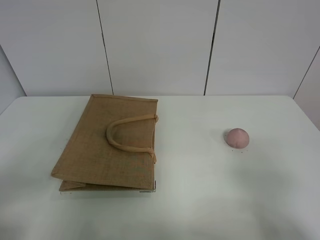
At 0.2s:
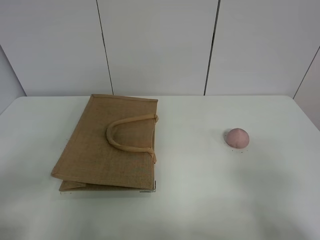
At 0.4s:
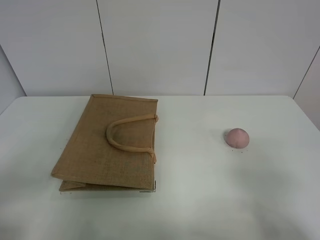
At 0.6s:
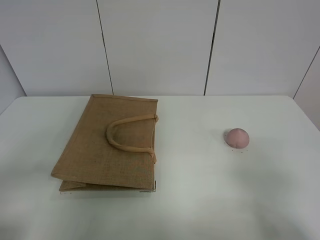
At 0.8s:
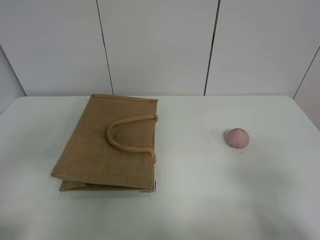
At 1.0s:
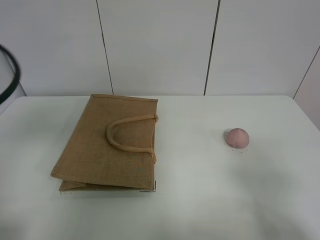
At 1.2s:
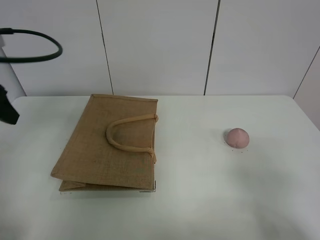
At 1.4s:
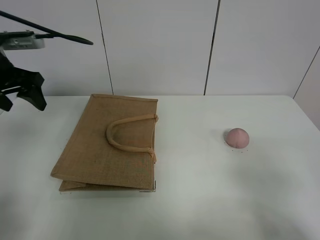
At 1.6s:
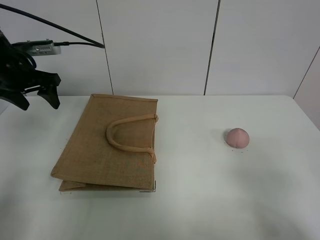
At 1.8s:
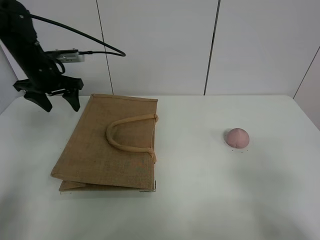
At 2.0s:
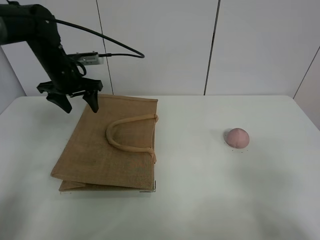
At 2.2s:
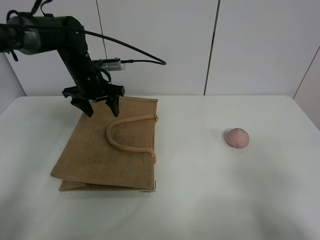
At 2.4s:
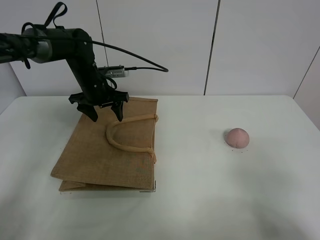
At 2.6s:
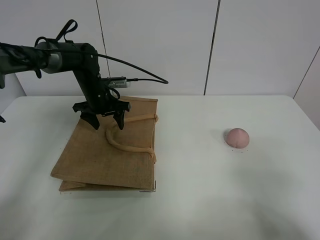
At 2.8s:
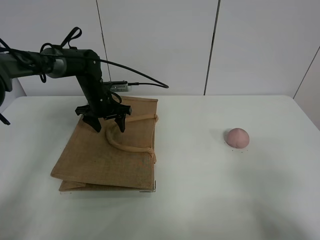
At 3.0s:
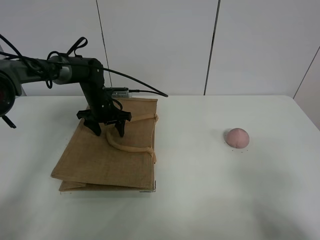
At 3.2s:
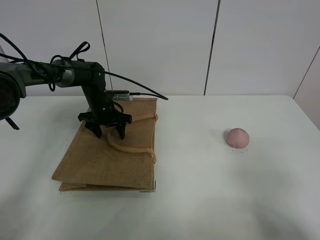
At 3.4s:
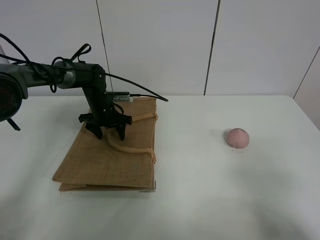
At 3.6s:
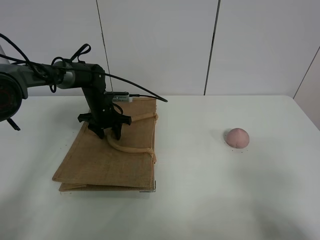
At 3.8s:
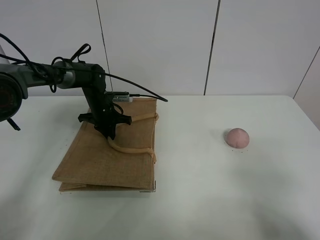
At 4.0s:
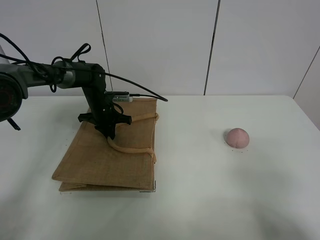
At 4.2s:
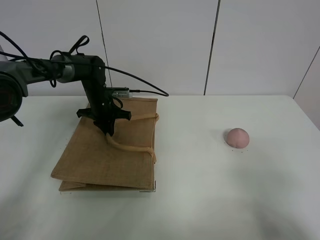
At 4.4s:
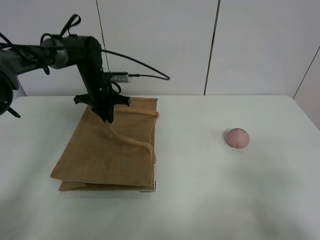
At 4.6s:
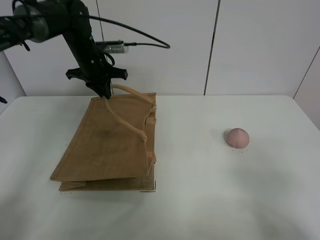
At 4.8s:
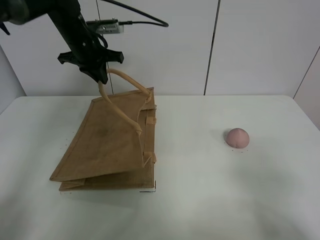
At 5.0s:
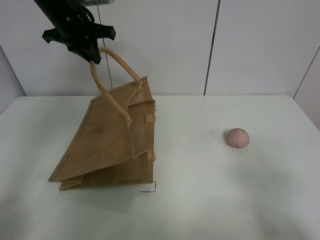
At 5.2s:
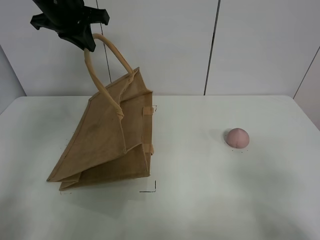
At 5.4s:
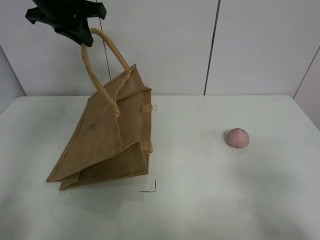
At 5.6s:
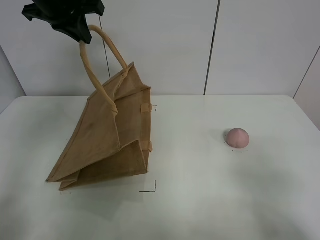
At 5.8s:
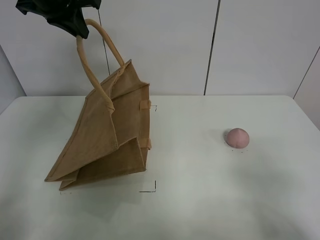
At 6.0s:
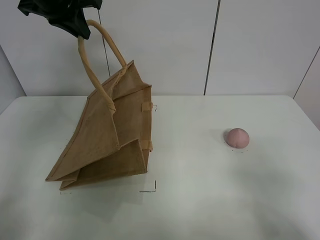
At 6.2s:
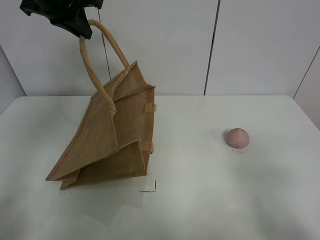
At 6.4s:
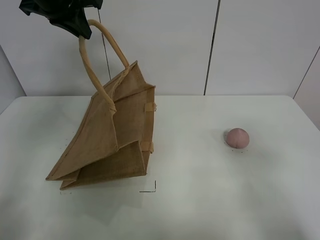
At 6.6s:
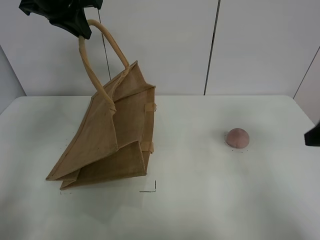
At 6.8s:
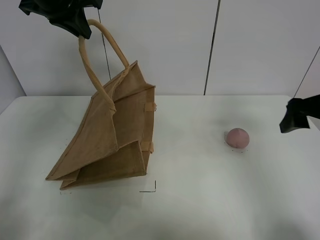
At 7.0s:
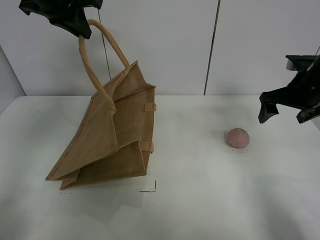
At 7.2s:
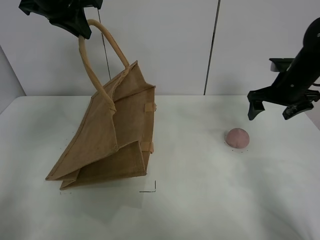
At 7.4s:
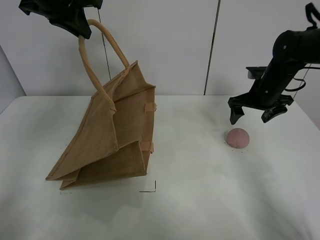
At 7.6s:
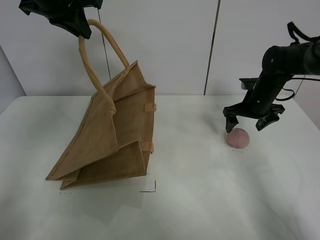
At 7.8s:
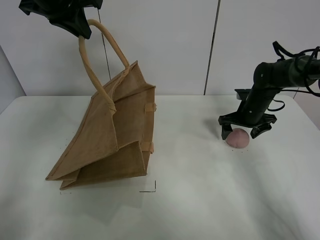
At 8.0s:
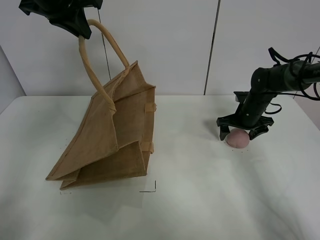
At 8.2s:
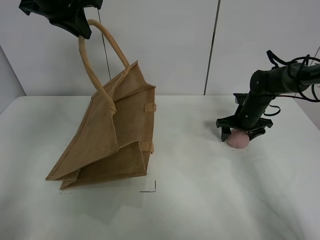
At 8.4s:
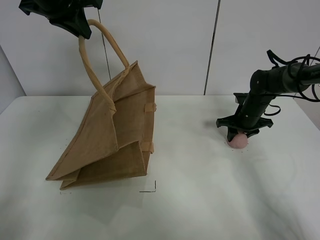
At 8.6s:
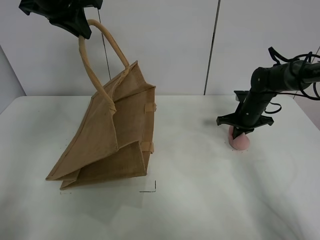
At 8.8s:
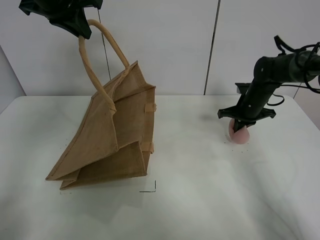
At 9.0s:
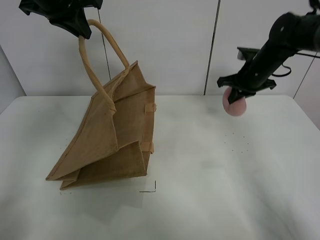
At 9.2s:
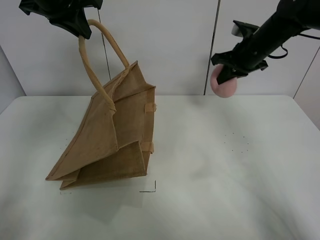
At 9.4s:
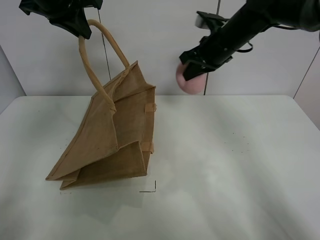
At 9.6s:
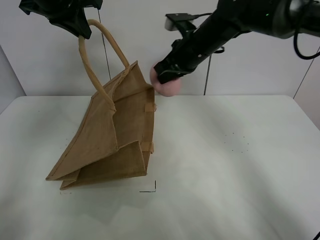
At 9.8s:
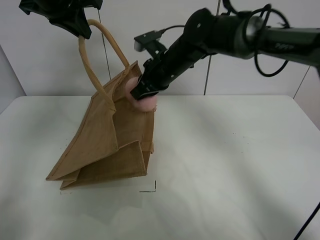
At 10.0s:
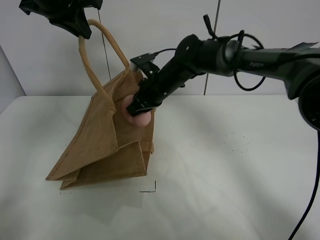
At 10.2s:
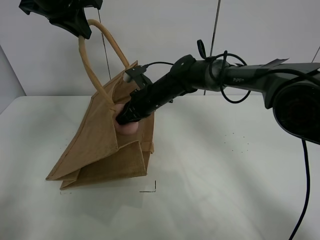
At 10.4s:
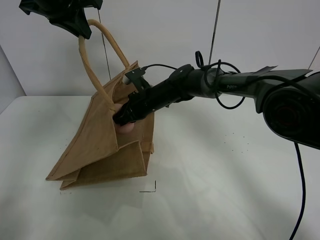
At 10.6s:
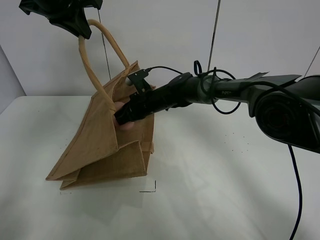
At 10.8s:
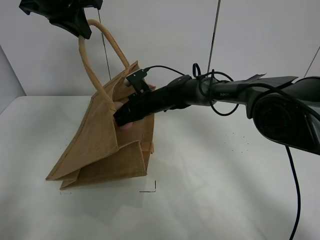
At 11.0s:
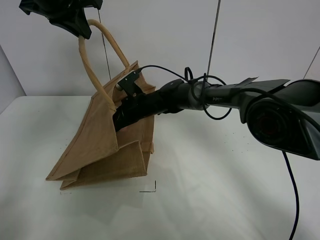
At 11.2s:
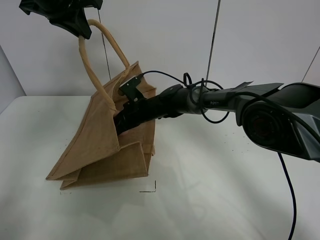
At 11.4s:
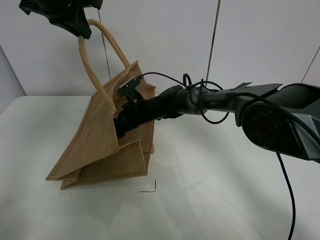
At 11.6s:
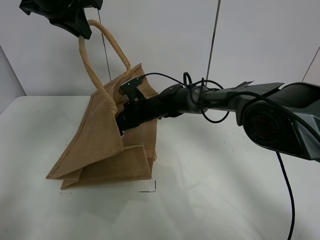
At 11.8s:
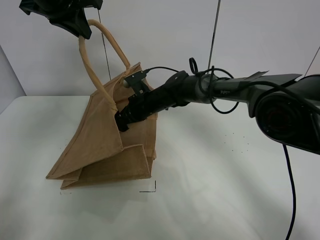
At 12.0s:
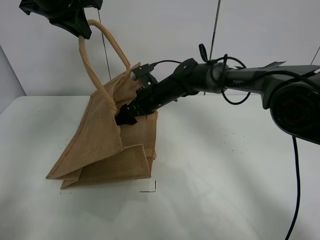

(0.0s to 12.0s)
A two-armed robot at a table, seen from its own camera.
Task of the whole recording: open the brown linen bag and put the peach in the bag.
Step, 0.0s - 5.8s: Lift the handbag with left gripper.
Step, 6.0s - 8.6s: Grasp the peach with right gripper.
0.0s - 1.6s: The left gripper goes some 40 cm forward.
1.6s - 3.0s: The left gripper is displaced downward, to the right and forward by about 20 cm.
3.0s - 4.4s: The left gripper travels upward by roughly 5 cm, and closes.
4.4s - 6.0s: The left gripper shifts approximately 25 cm upward.
6.0s - 7.6s: The right gripper heads forward, covering roughly 40 cm.
7.6s - 9.0s: The right gripper shifts roughly 5 cm upward, and closes.
9.0s - 10.4s: The right gripper is displaced to the left by approximately 25 cm.
10.4s - 12.0s: The right gripper opens.

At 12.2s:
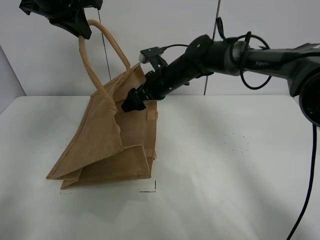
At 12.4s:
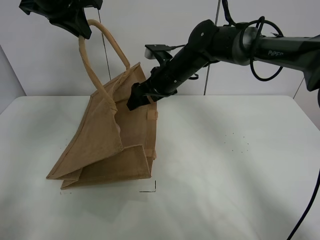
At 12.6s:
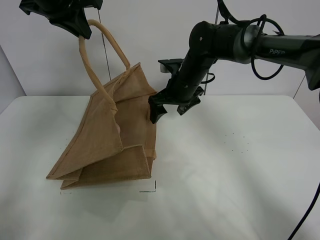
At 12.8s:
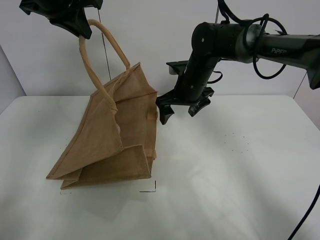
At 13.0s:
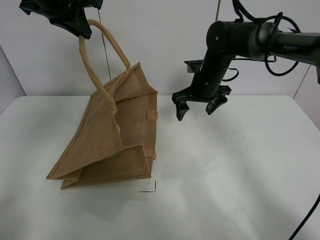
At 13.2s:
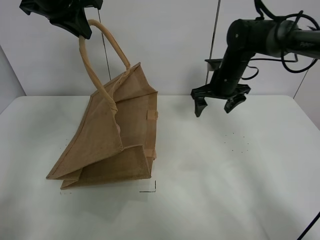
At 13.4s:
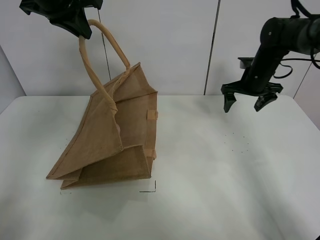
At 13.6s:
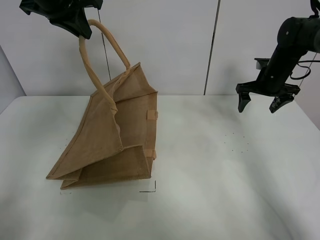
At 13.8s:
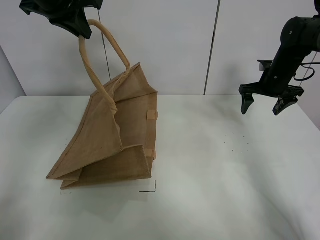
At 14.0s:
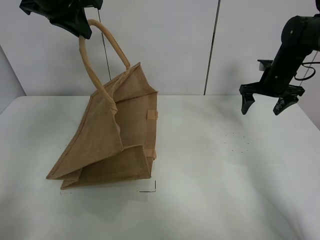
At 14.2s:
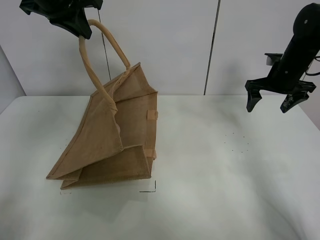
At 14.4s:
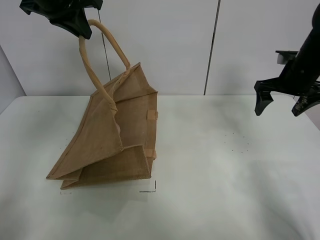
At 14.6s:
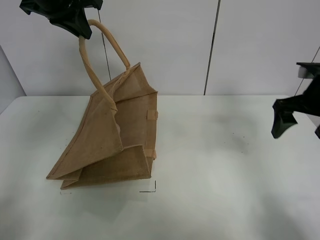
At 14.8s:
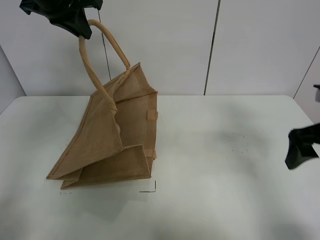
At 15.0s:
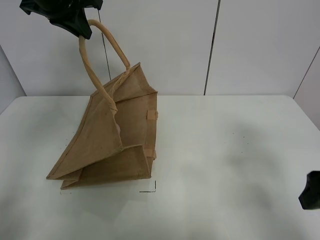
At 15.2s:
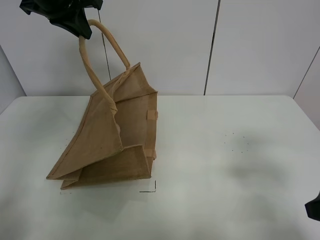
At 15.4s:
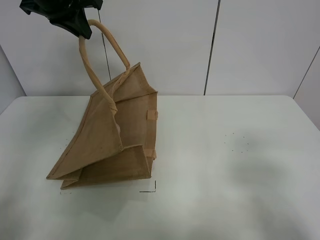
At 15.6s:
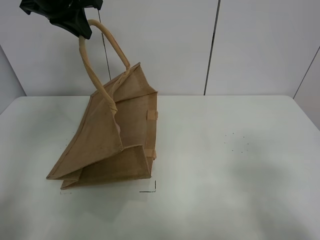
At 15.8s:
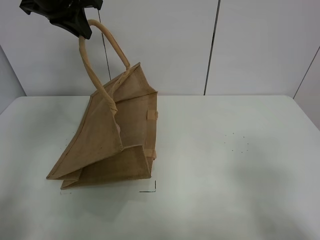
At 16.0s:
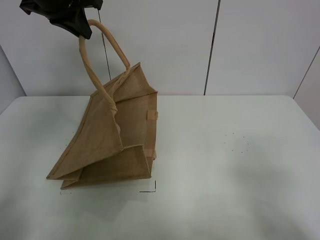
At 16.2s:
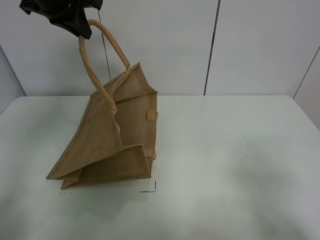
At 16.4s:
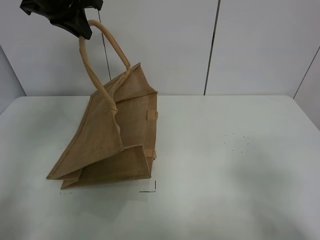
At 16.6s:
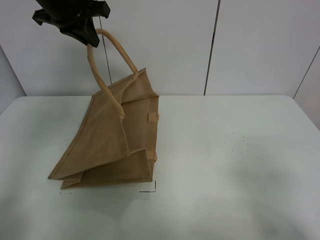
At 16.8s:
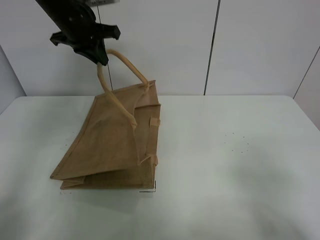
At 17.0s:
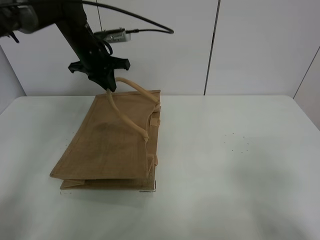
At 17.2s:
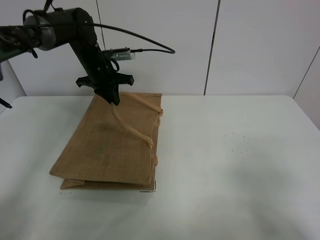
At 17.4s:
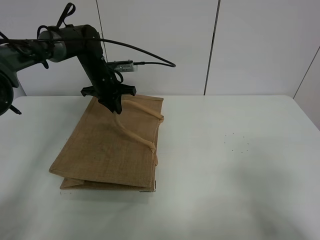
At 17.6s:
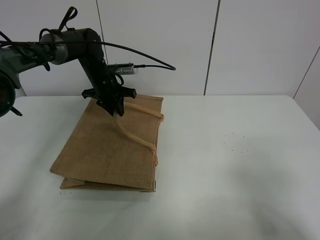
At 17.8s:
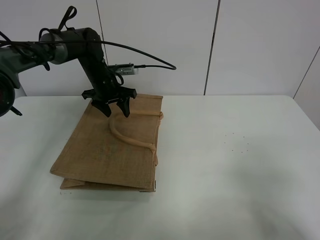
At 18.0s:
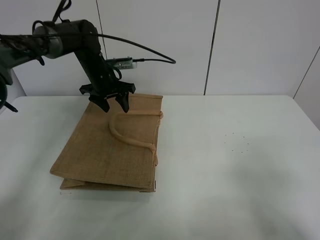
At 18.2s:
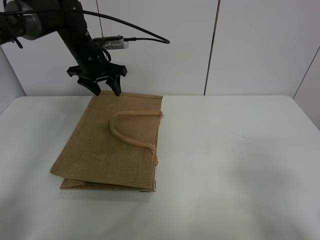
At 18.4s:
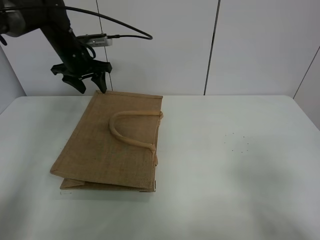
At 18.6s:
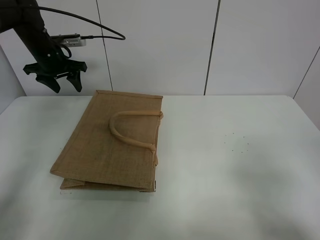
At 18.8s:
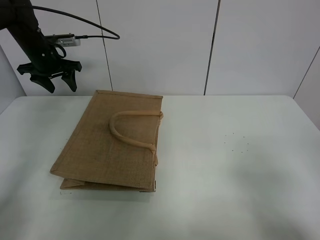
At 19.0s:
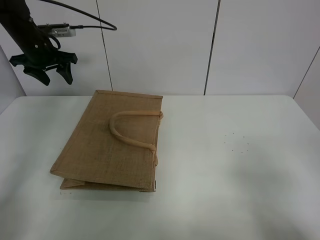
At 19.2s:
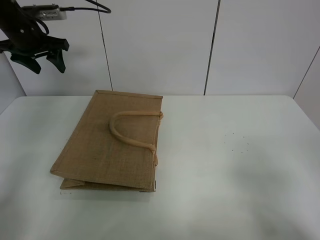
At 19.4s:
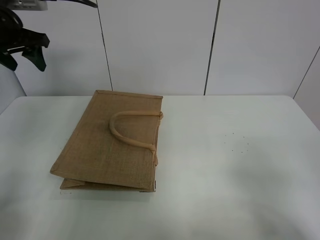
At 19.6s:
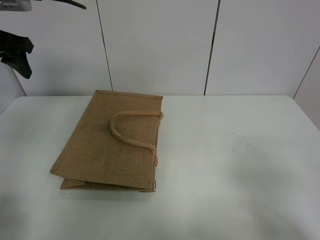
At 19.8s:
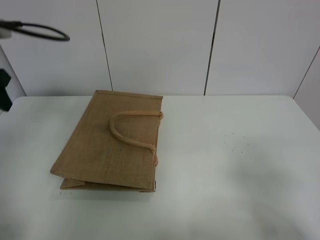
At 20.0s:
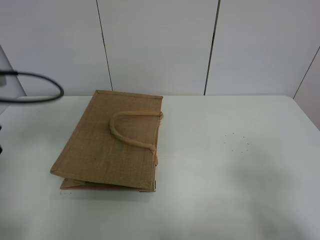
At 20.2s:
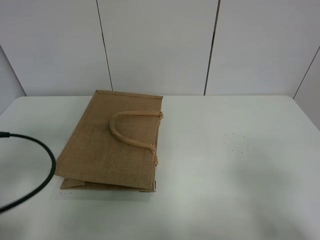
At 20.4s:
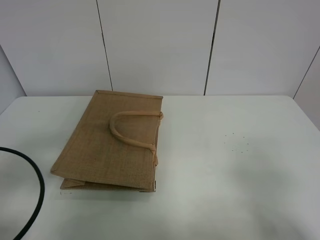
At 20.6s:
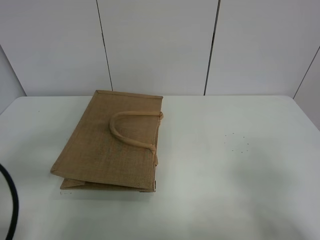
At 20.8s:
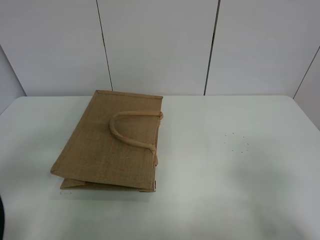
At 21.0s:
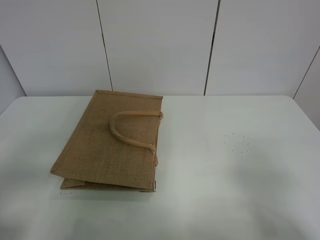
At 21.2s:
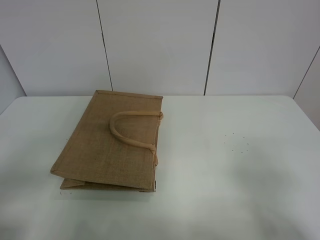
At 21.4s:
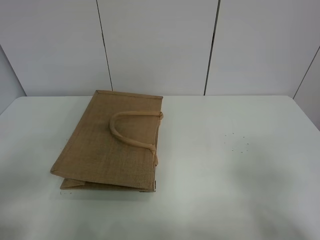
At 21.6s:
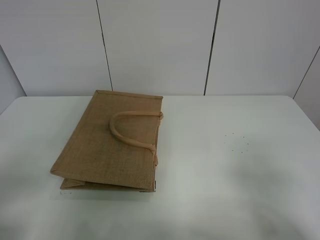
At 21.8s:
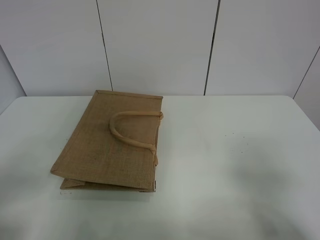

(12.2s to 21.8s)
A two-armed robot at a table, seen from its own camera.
Task of the whole recording: open the brown linen bag and put the peach in the bag.
Step, 12.6s - 18.4s: Put down the handbag with left grippe.
12.2s - 13.8s: The right gripper shifts roughly 25 cm to the right.
13.8s - 15.4s: The right gripper goes about 40 cm backward.
15.4s - 17.0s: The right gripper shifts roughly 5 cm backward; the left gripper travels downward and forward by roughly 15 cm.
17.0s - 18.6s: The left gripper shifts roughly 15 cm to the left, and opens up.
18.6s - 20.2s: The left gripper heads backward, covering approximately 35 cm.
20.2s - 21.8s: The left gripper heads backward, covering approximately 10 cm.
